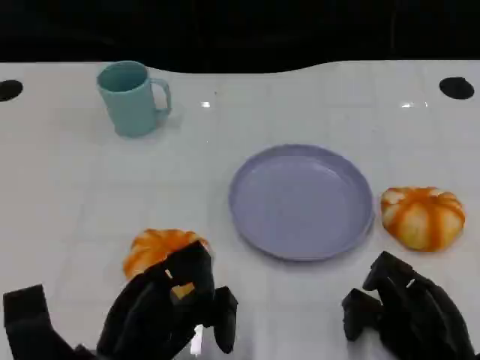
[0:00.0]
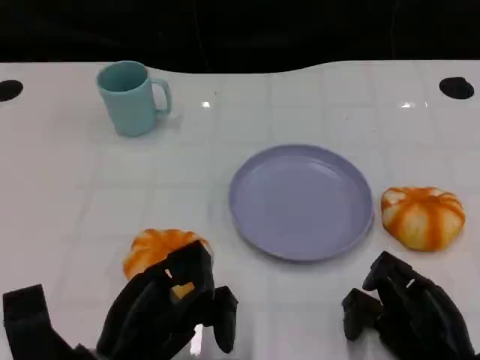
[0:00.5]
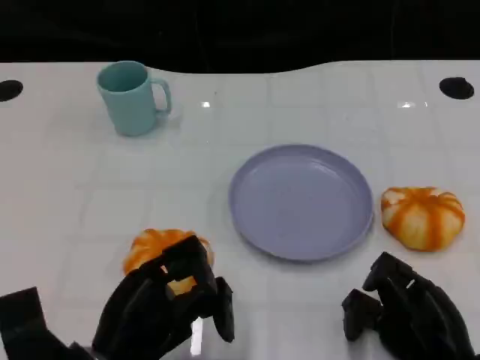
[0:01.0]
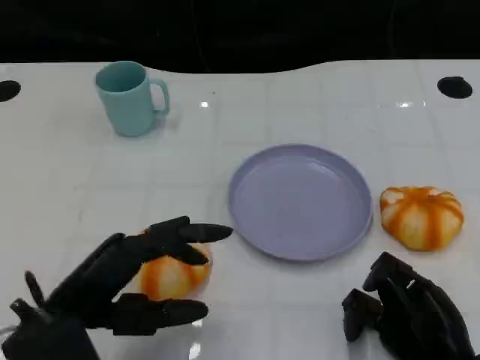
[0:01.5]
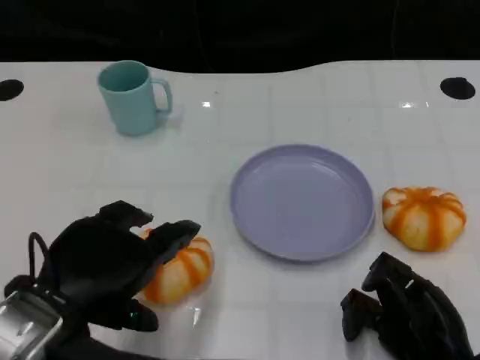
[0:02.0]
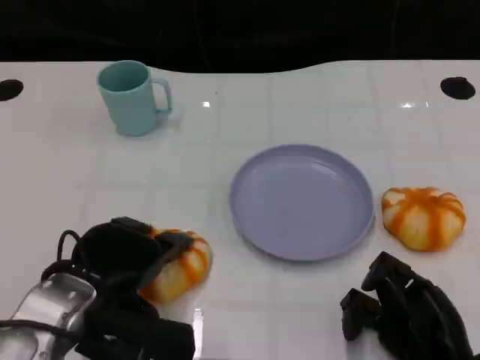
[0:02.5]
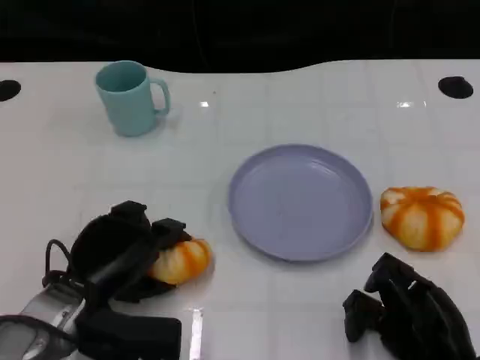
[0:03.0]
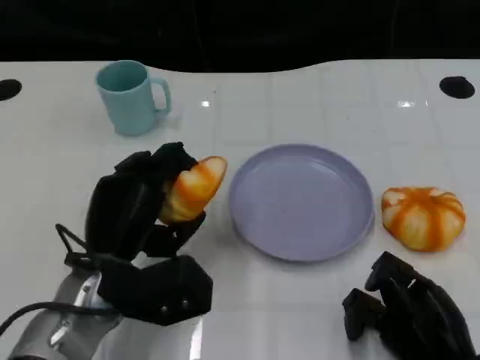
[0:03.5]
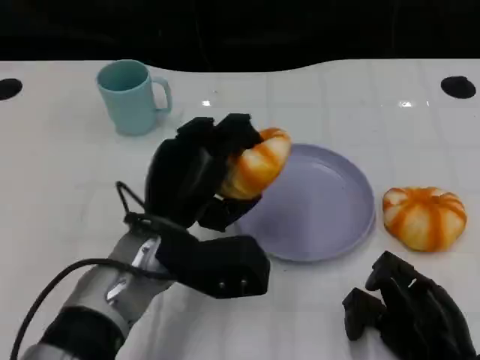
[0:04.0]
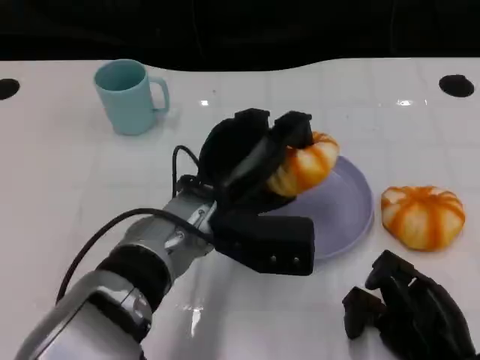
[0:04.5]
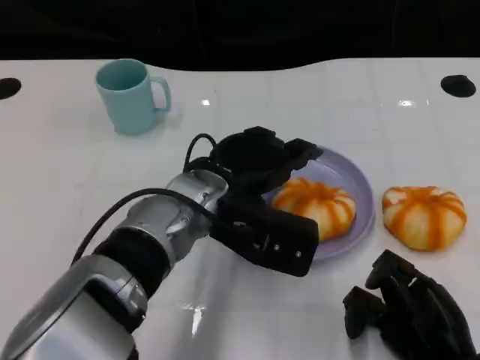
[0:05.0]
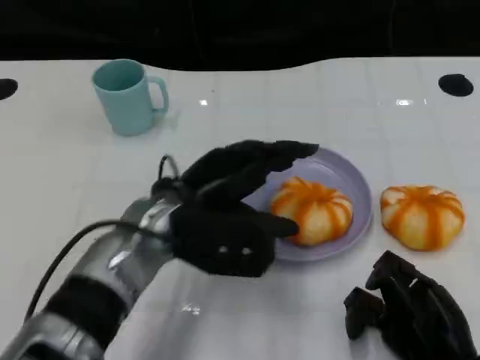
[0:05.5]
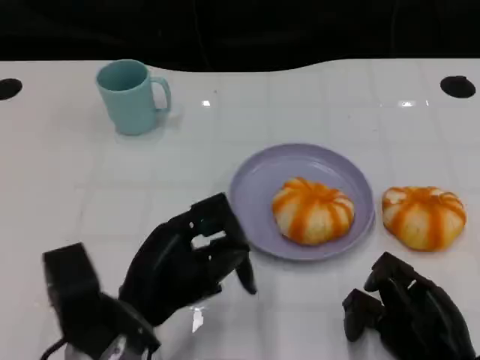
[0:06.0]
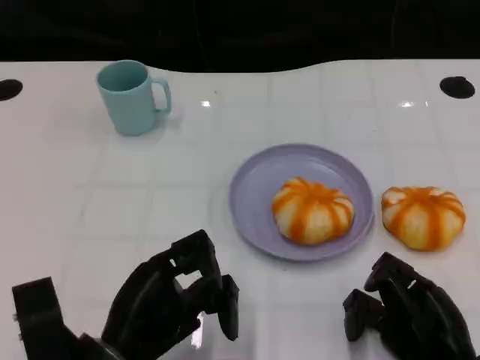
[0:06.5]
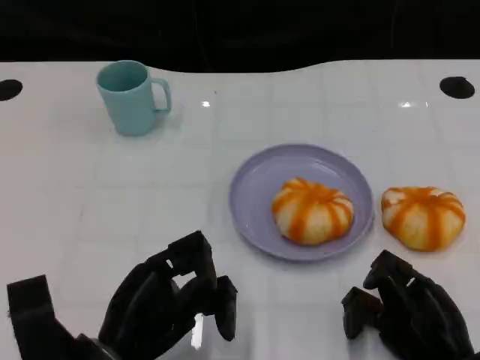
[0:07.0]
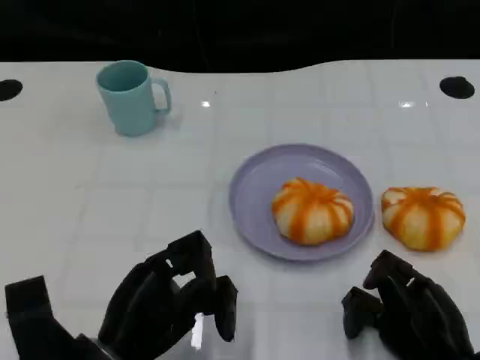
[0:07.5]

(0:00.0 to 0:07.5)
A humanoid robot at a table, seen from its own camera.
Task of the whole recording: Grasp the bread from the table and place it into the plate.
0:00.0 - 0:02.0: The left hand moves upward, some 10 cm.
0:02.0 - 0:04.0: The left hand heads to the right and forward, covering approximately 15 cm.
0:05.5 - 0:07.5: The left hand shifts about 15 cm backward, to the left and downward.

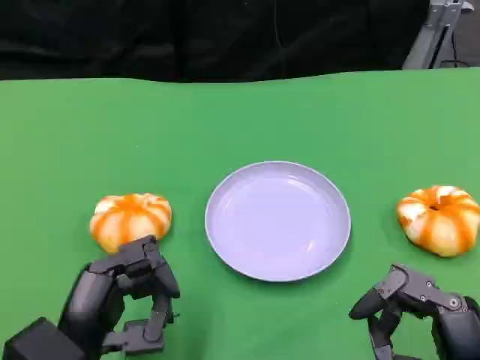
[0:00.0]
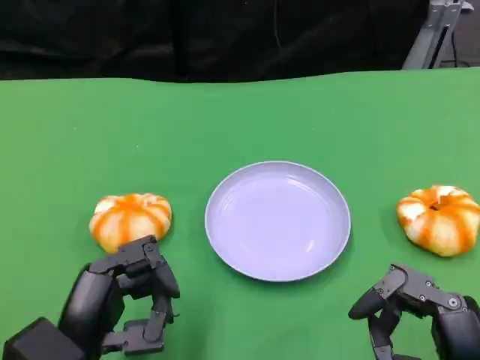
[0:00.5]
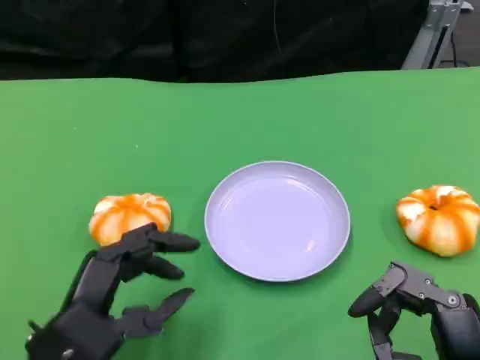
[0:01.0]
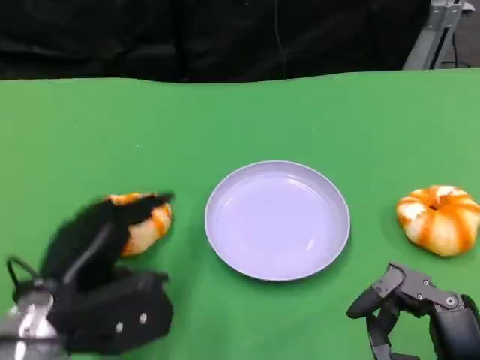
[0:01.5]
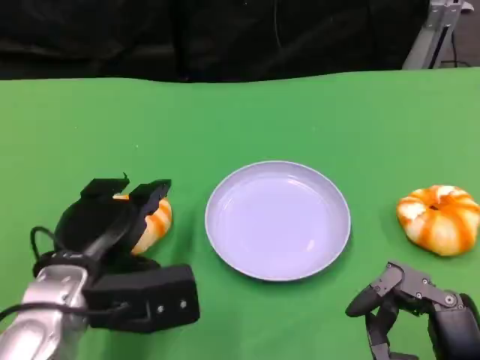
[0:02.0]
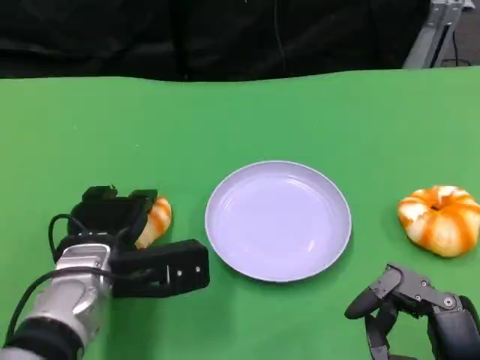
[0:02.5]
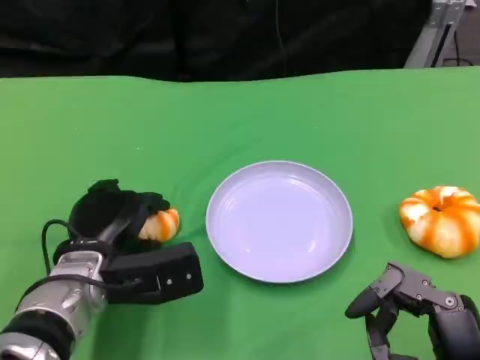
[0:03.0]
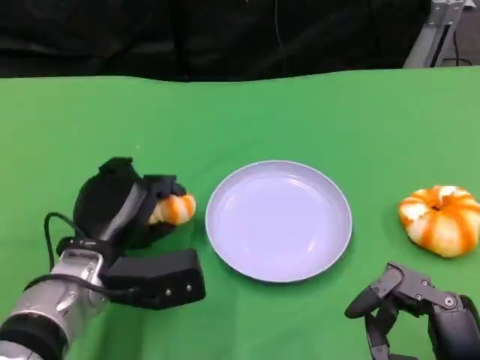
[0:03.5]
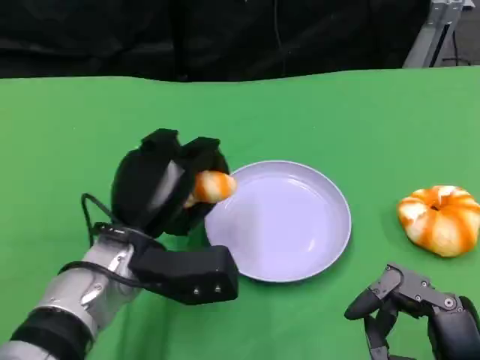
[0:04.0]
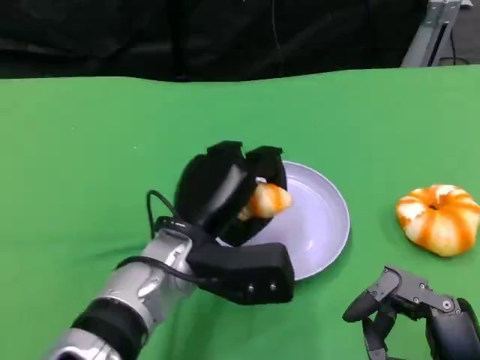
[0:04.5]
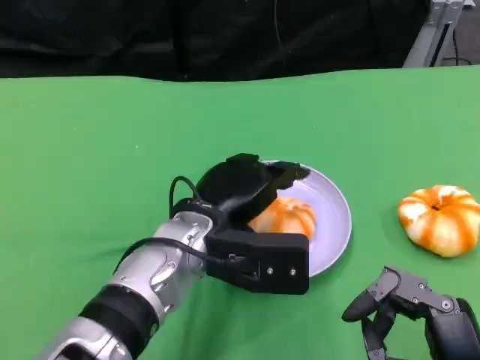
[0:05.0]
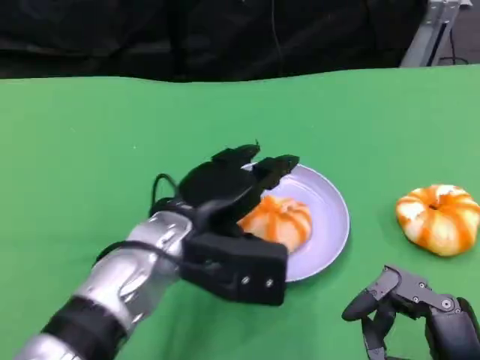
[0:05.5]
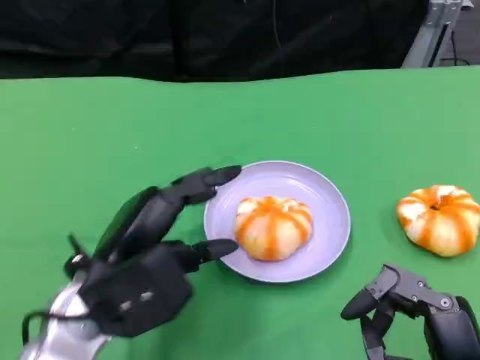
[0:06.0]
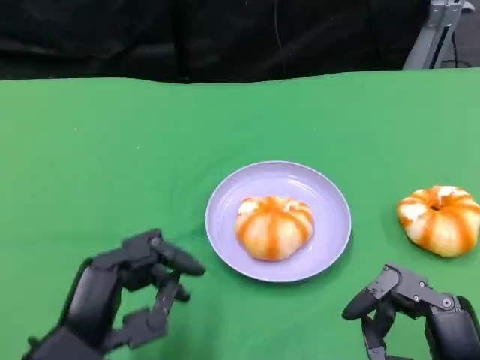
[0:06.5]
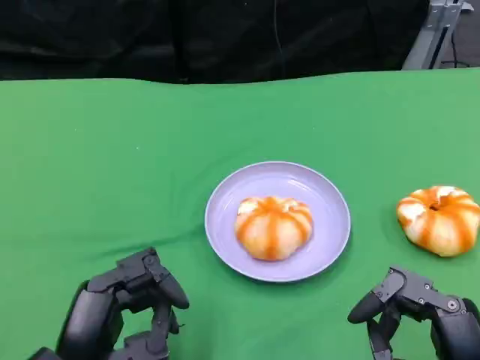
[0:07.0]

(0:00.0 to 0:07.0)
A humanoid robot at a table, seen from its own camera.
Task of the whole recording: Grasp the bread from the table and place it into the plate.
0:00.0 - 0:02.0: The left hand is displaced forward by approximately 10 cm.
0:02.0 - 0:03.5: The hands stay close to where they were, moving slightly.
0:03.5 - 0:05.0: The left hand moves to the right, about 10 cm.
0:05.0 - 0:07.0: The left hand travels backward and to the left by roughly 20 cm.

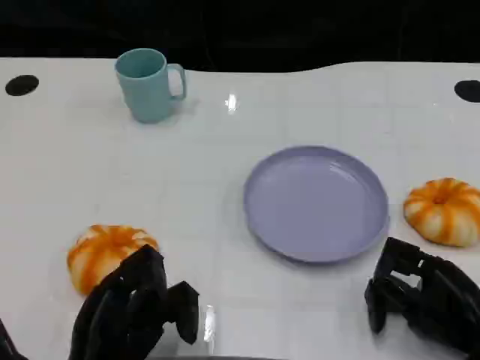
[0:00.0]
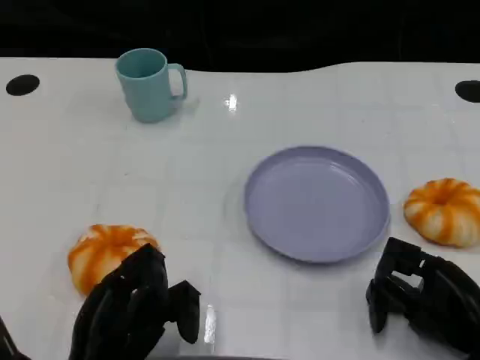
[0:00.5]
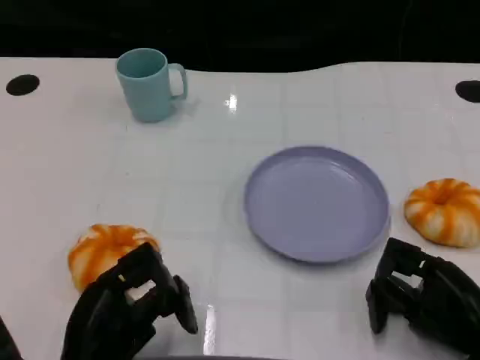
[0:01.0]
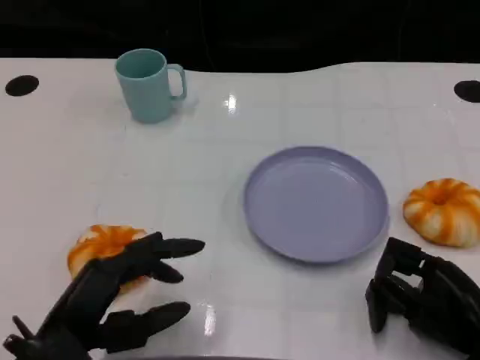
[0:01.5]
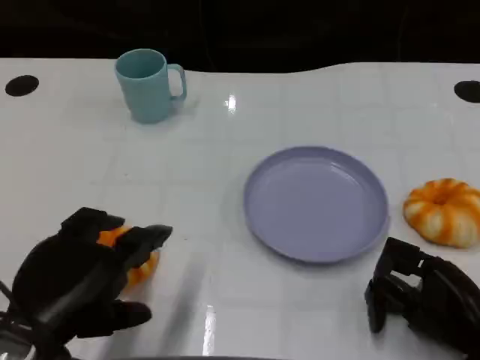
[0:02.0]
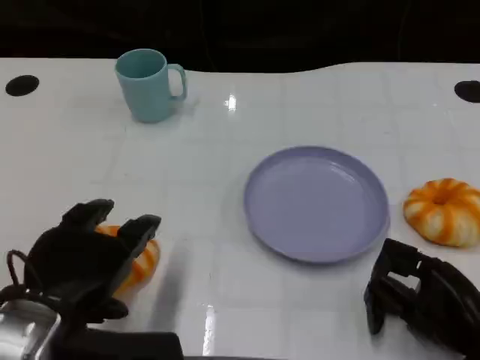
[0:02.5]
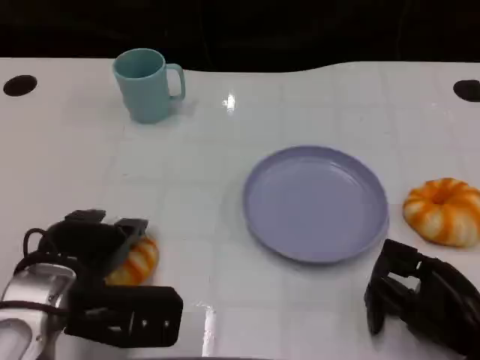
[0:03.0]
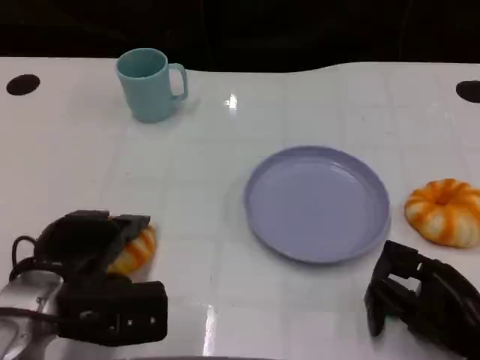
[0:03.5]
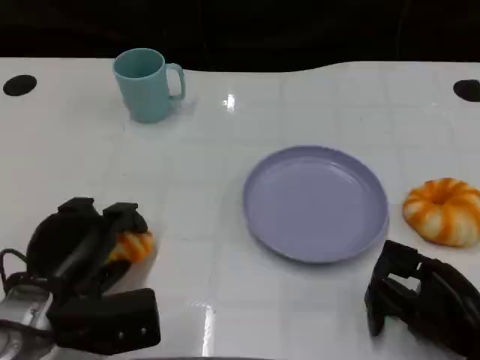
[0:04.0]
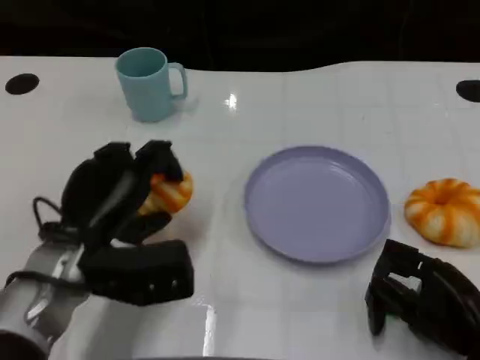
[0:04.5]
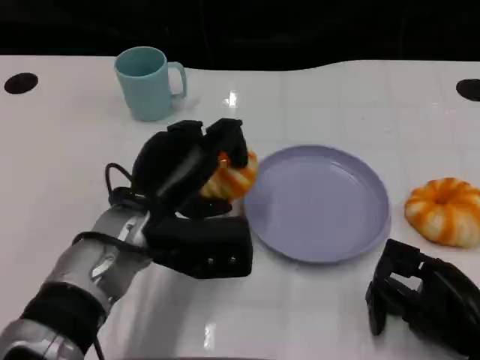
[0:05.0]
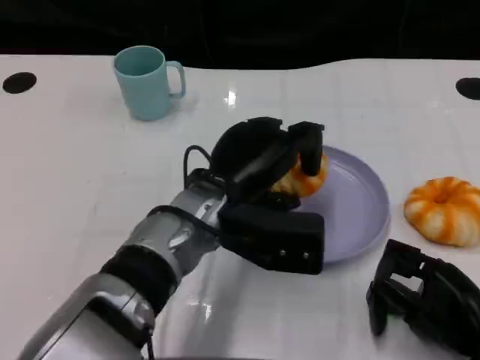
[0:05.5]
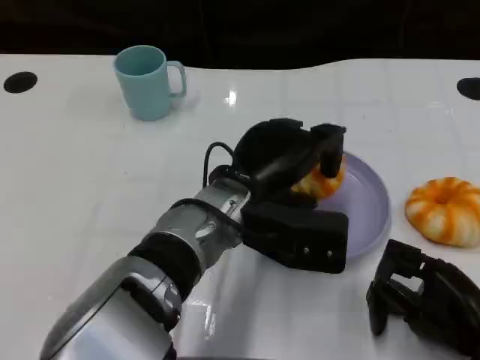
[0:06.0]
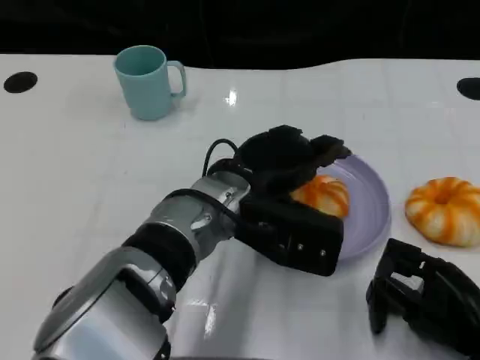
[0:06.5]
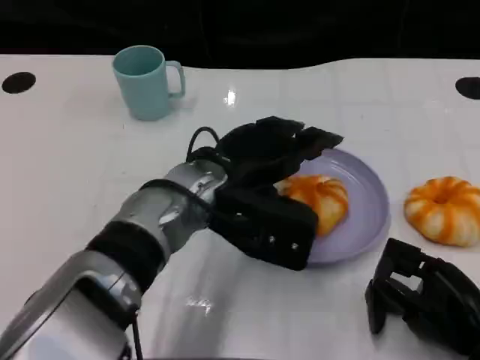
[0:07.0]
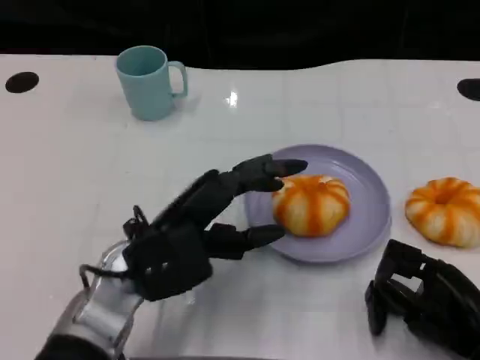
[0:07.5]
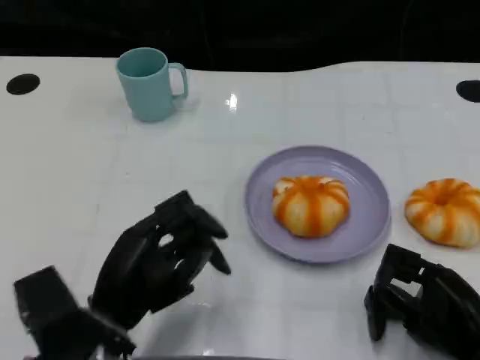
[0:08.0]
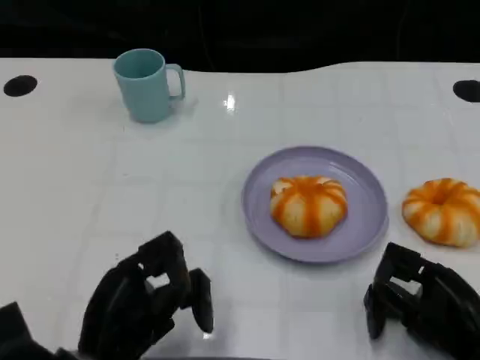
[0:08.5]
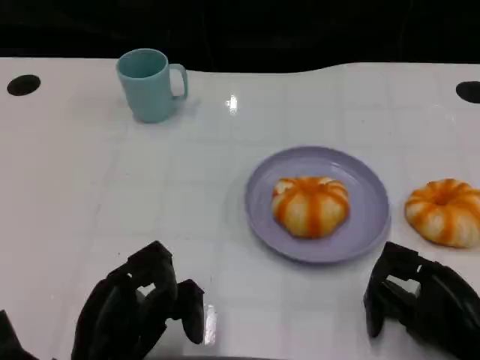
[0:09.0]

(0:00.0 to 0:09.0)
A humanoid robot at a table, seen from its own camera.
Task of the whole recording: Grasp the bread from the table and place it into the plate.
0:00.0 - 0:02.0: The left hand travels upward by about 10 cm.
0:02.0 - 0:04.5: The left hand heads forward, covering some 10 cm.
0:04.5 - 0:07.0: The left hand travels to the right by approximately 10 cm.
0:07.0 - 0:09.0: The left hand goes some 20 cm backward, to the left and downward.
